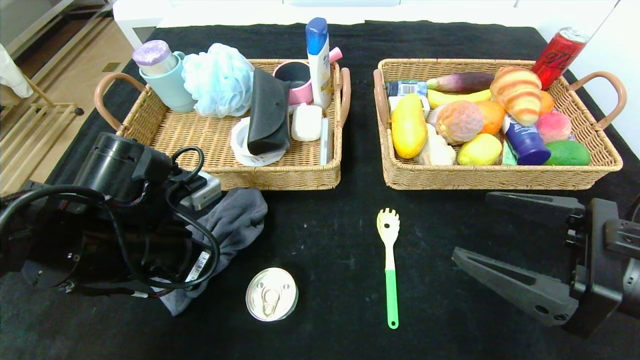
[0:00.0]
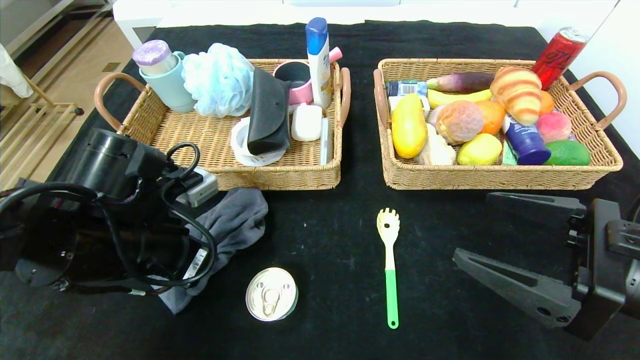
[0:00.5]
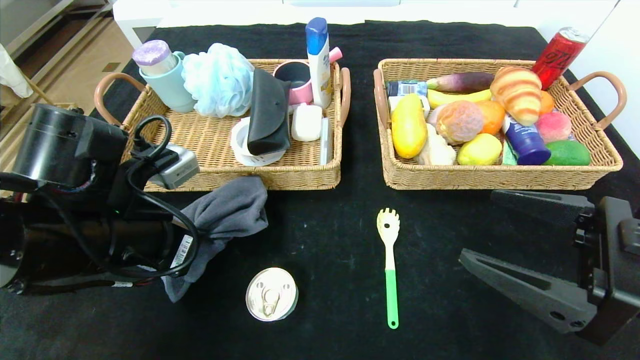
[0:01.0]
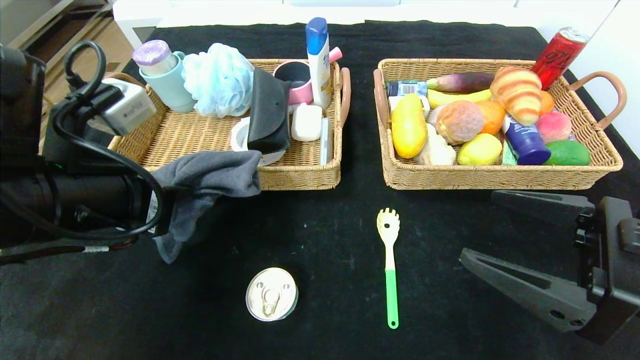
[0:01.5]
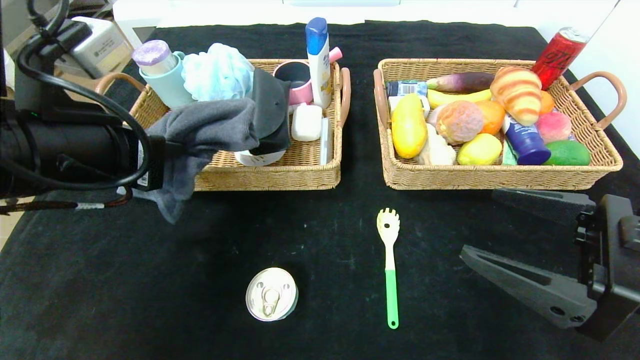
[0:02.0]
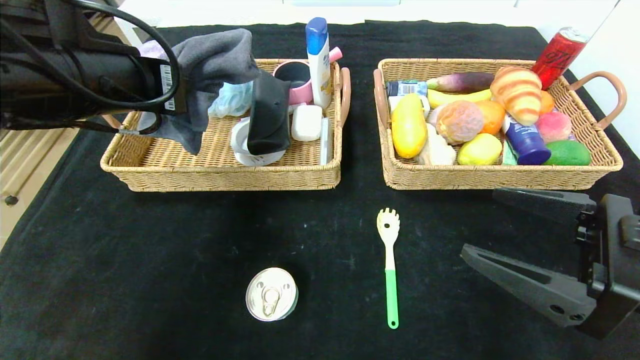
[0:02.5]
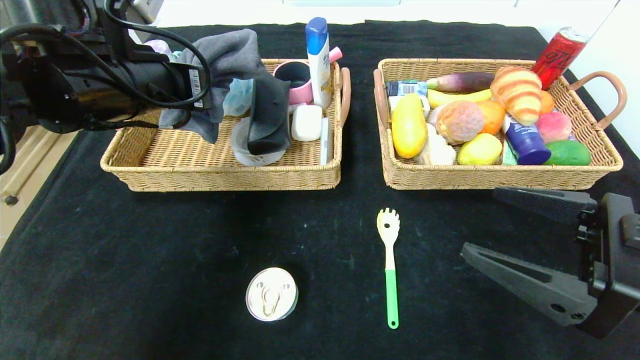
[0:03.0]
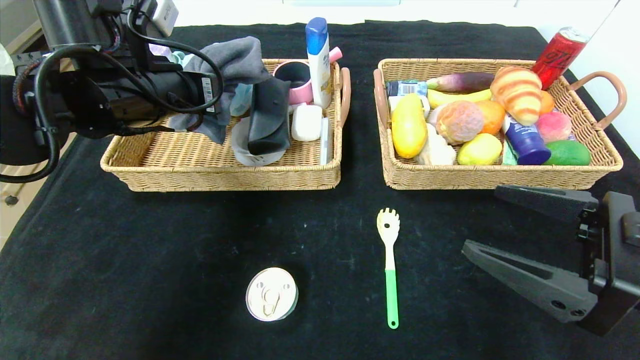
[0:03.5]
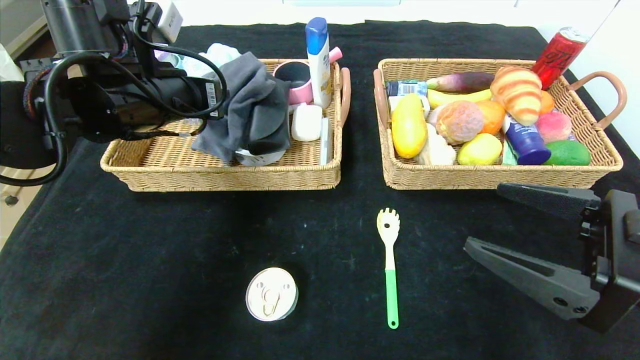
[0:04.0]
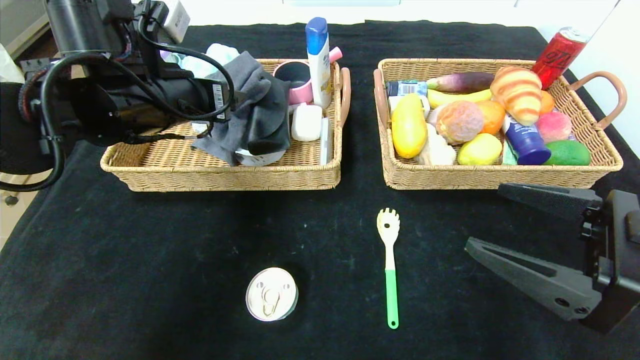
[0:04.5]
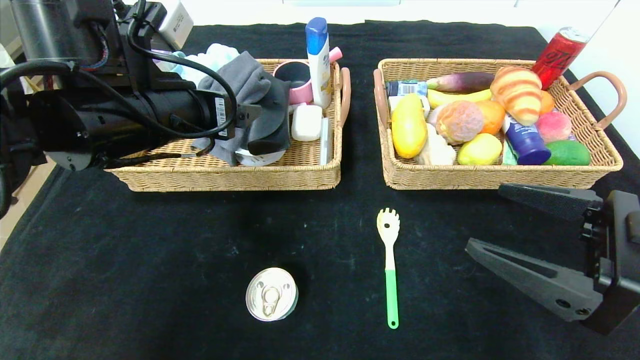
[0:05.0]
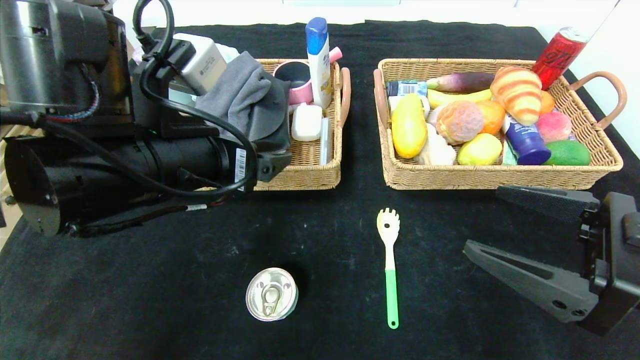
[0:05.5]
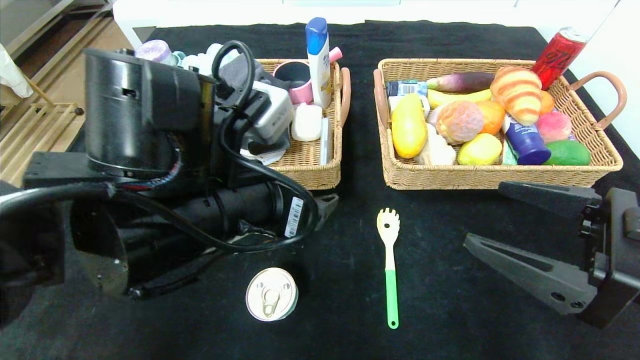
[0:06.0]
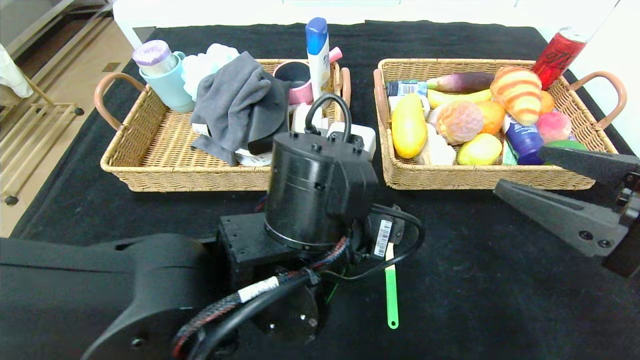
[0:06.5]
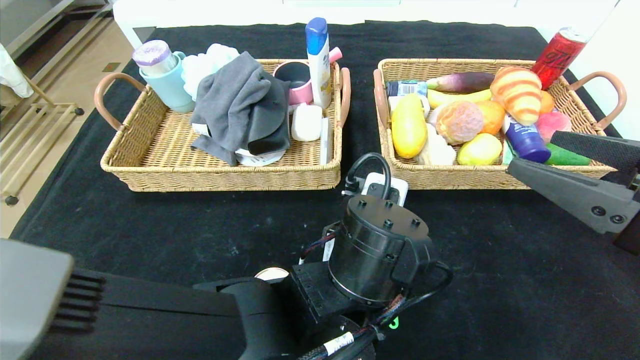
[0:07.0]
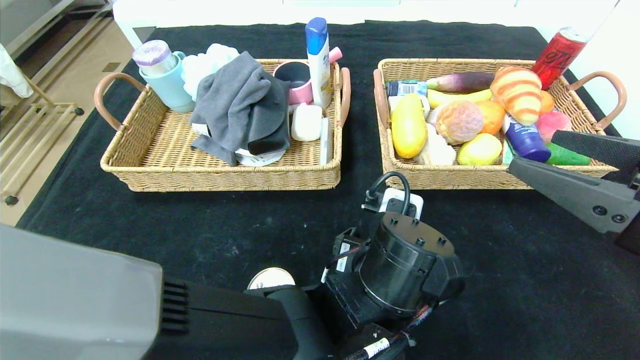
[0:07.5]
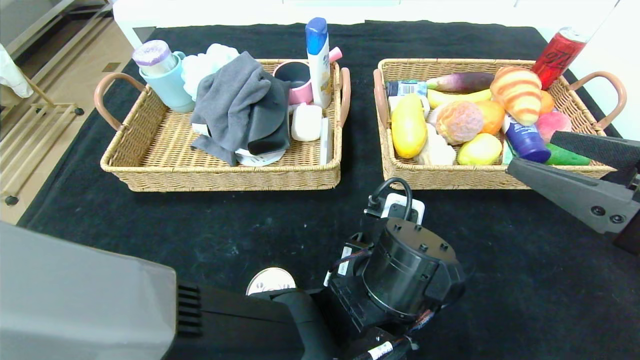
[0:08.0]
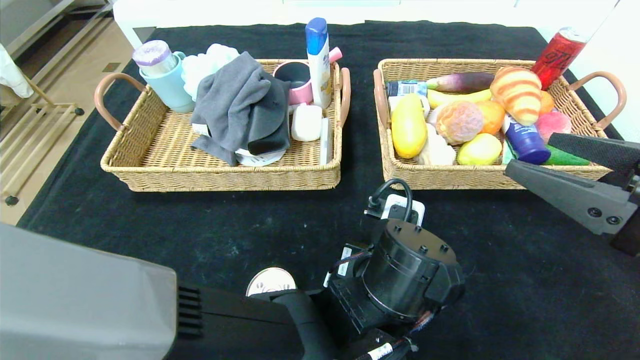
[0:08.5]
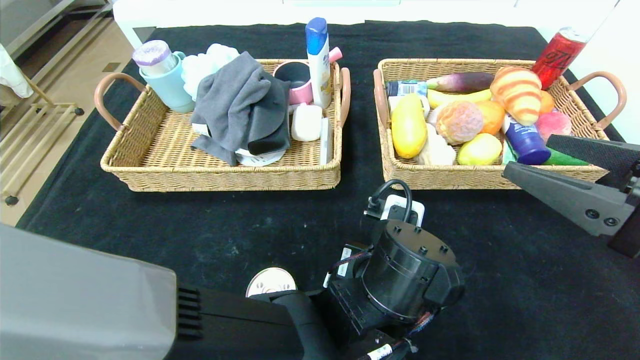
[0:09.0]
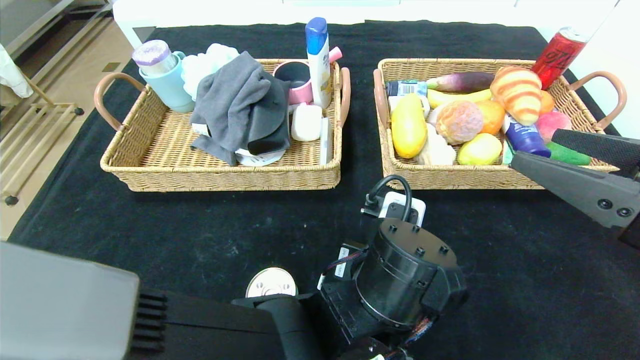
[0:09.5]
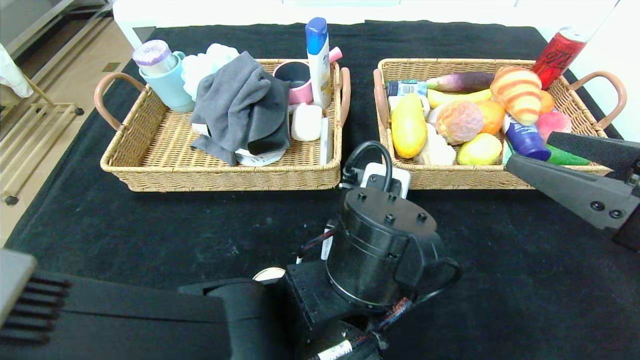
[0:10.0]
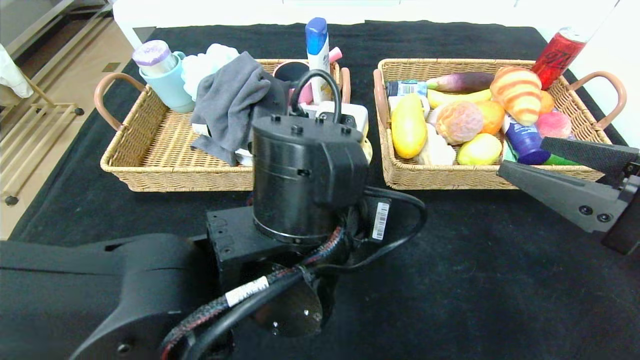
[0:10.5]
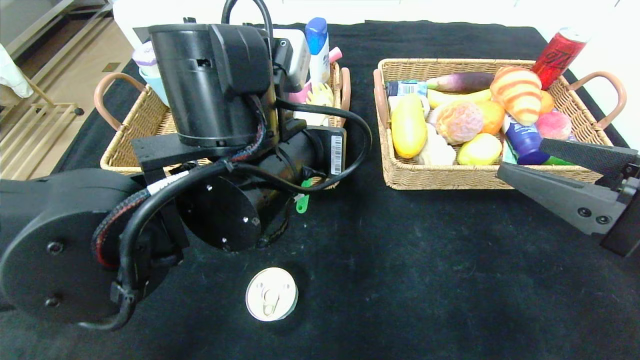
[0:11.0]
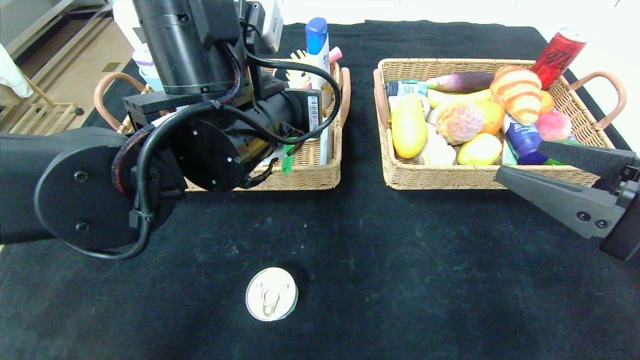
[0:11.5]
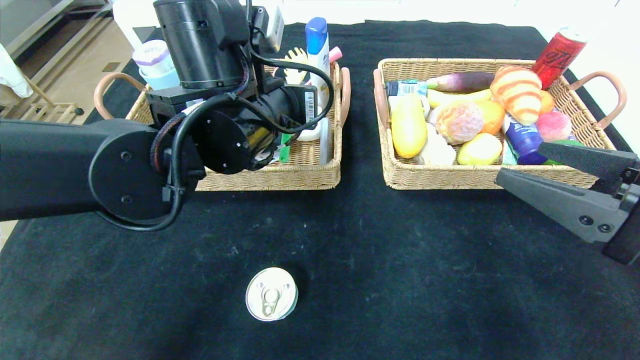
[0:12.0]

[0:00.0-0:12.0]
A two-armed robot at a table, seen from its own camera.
Step, 0:00.0 to 0:04.0: Grasp the gray towel and put it in the left basket.
0:00.0 to 0:02.0: The left gripper goes about 10 cm upward.
0:02.0 to 0:04.0: The left gripper travels forward by about 10 cm, and opens.
0:04.0 to 0:06.0: The left gripper is displaced backward, to the right and downward by approximately 20 cm, and opens up.
0:06.0 to 0:08.0: The left gripper shifts roughly 20 cm to the right and downward.
0:08.0 to 0:10.0: The left gripper shifts by roughly 5 cm, and closes up.
0:10.0 to 0:12.0: The left gripper heads forward, upward and to the left, covering about 20 cm.

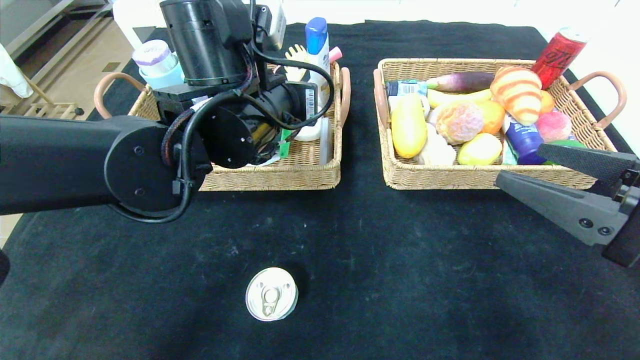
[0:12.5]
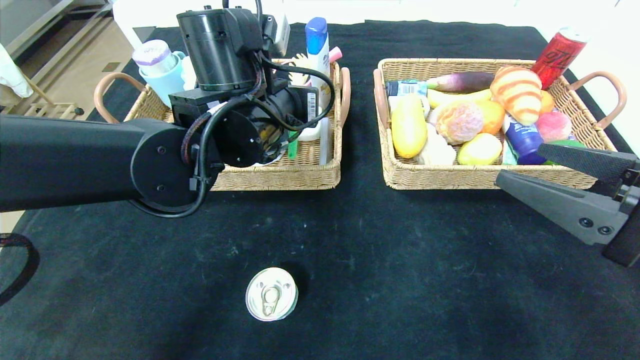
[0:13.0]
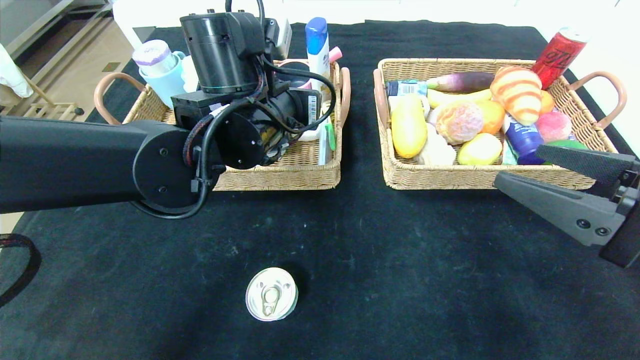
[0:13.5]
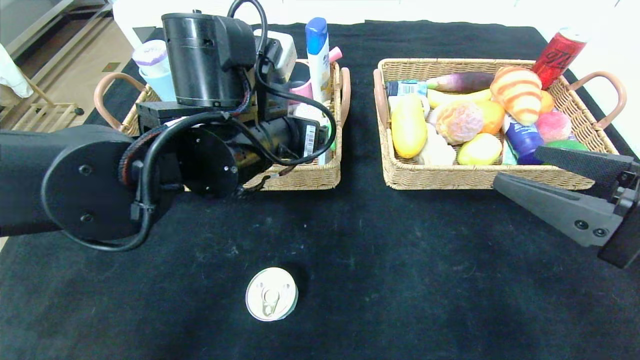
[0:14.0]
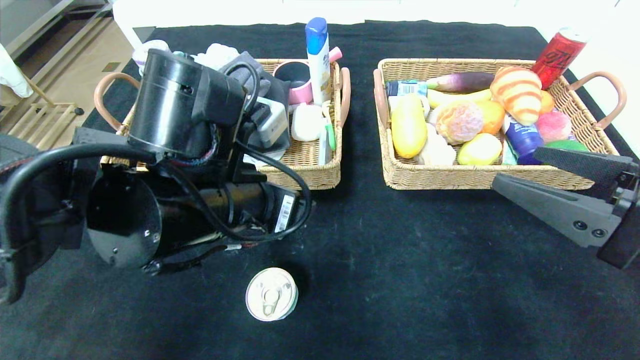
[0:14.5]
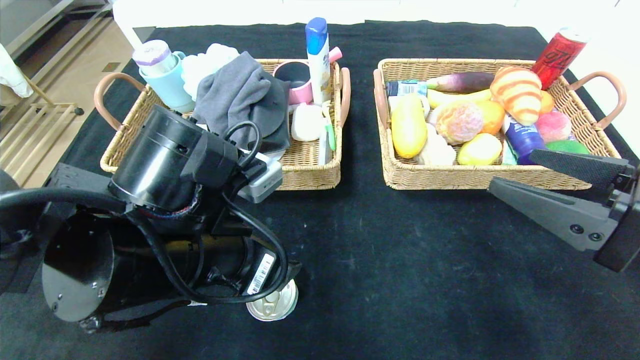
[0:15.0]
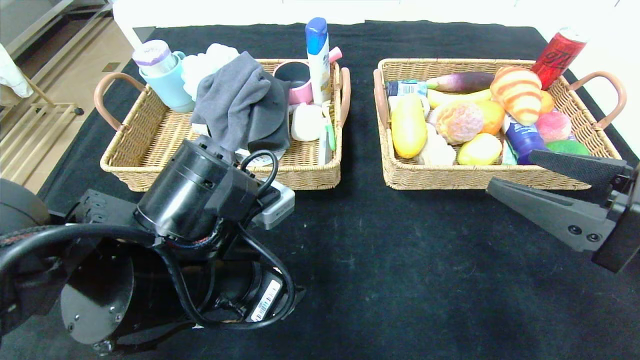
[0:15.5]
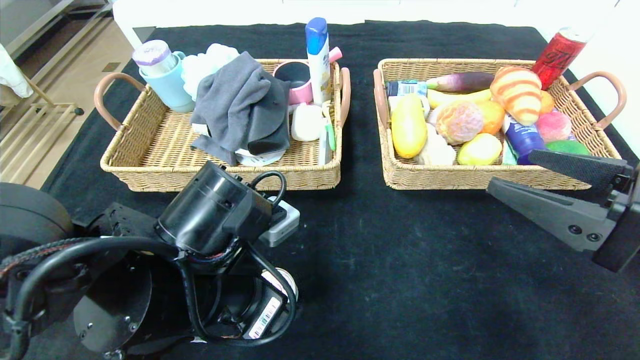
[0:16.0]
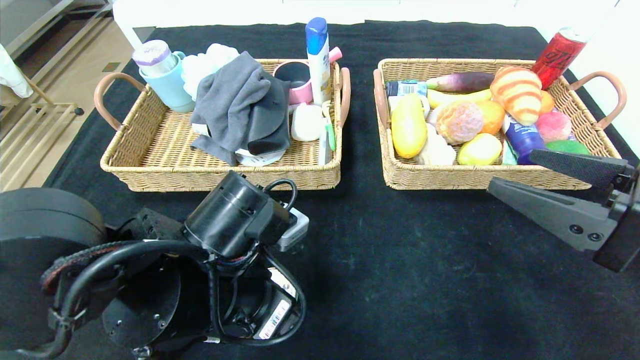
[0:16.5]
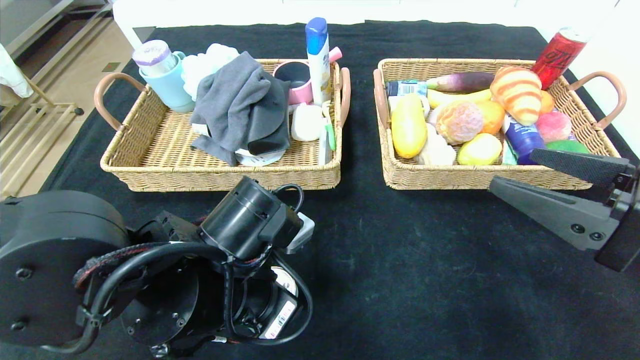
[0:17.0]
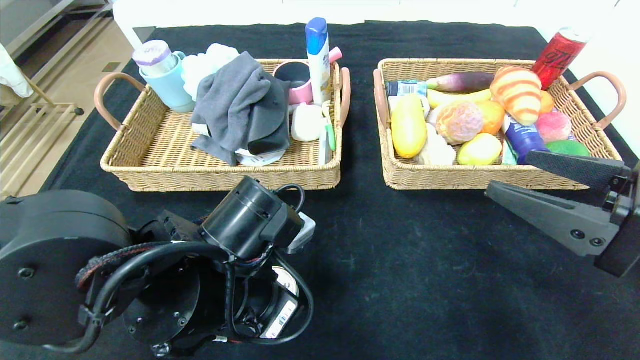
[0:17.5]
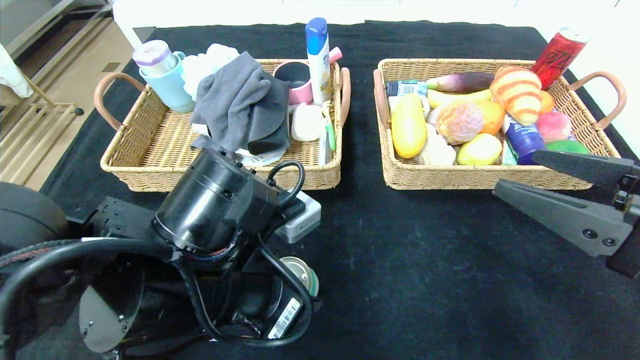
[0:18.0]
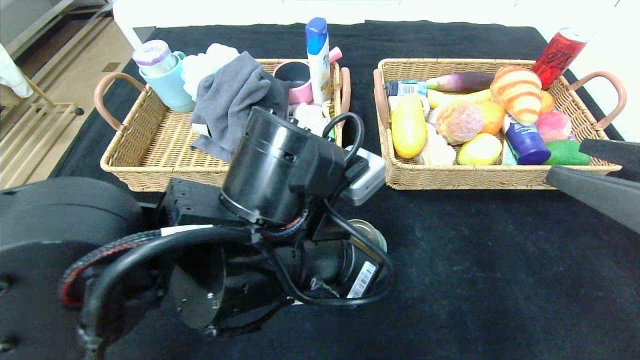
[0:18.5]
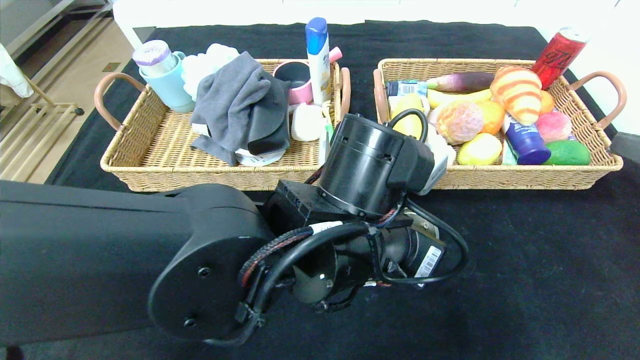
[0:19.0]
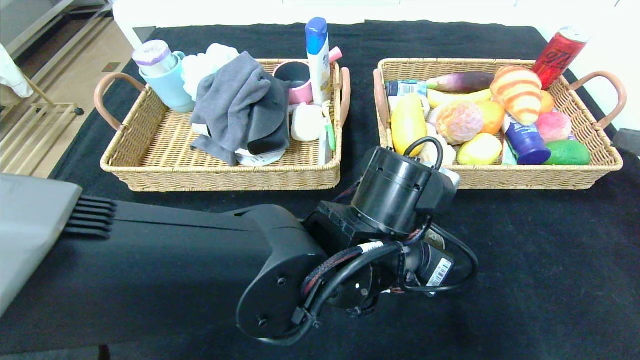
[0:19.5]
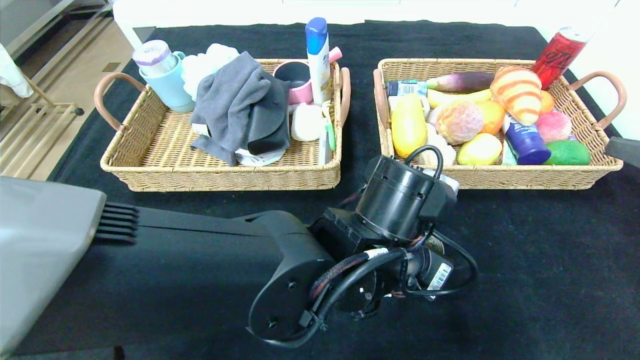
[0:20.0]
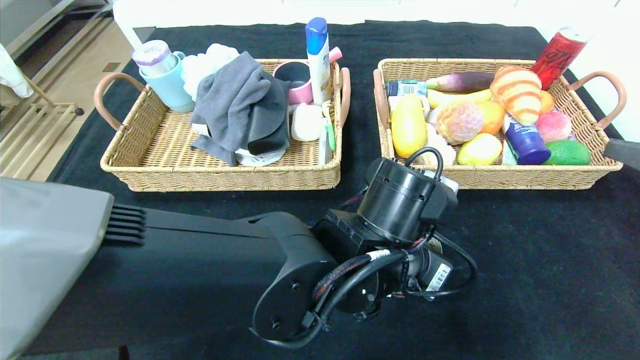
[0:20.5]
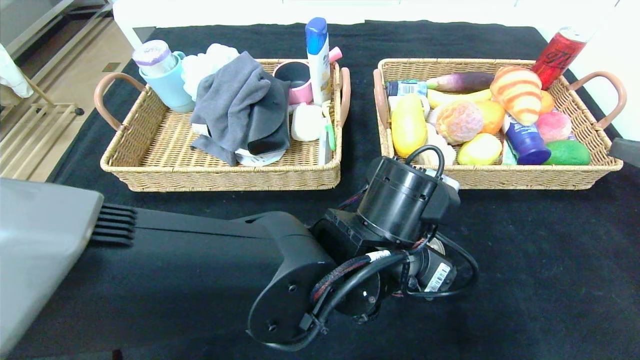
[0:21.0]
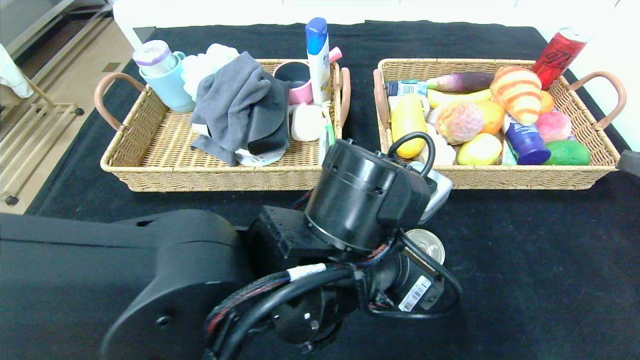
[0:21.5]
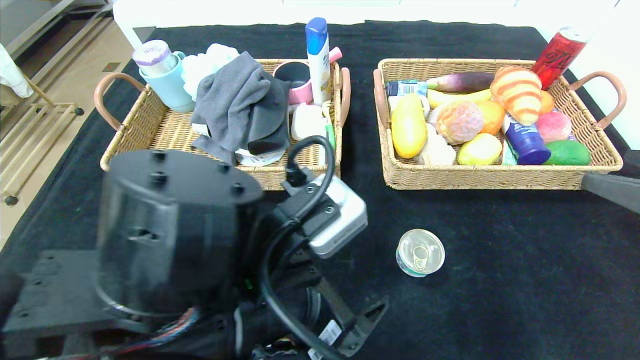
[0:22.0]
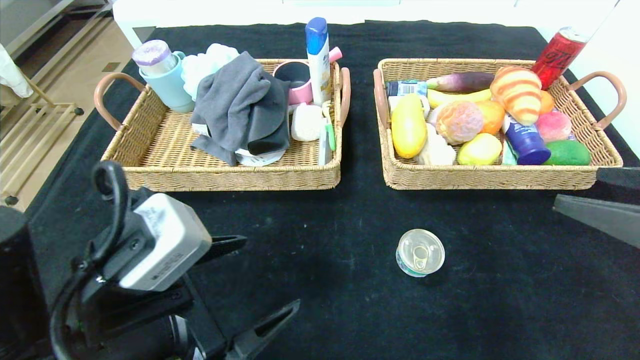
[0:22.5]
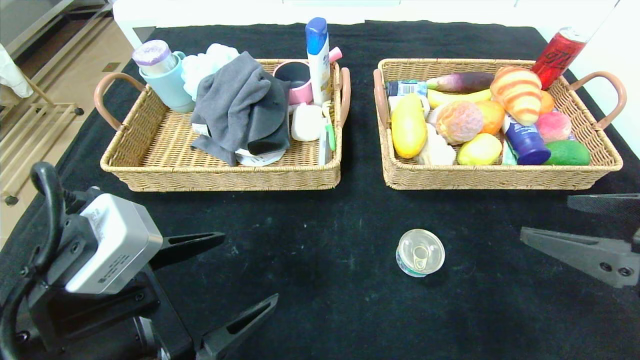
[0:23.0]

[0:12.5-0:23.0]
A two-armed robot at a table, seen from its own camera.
Step, 0:13.5 to 0:21.0: Place the can in the center of the table.
0:12.5 to 0:14.5: The left gripper moves backward, approximately 10 cm, and opens up.
0:14.5 to 0:16.5: The left gripper moves downward, about 5 cm.
0:16.5 to 0:19.0: The left gripper goes roughly 15 cm to the right, and closes, while the right gripper is displaced to the right by about 5 cm.
0:19.0 to 0:21.0: The grippers move only a little.
0:21.0 to 0:23.0: The right gripper moves roughly 5 cm, while the left gripper moves to the left and backward, approximately 25 cm.
